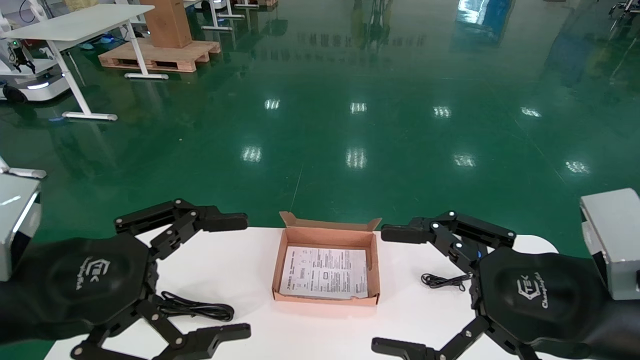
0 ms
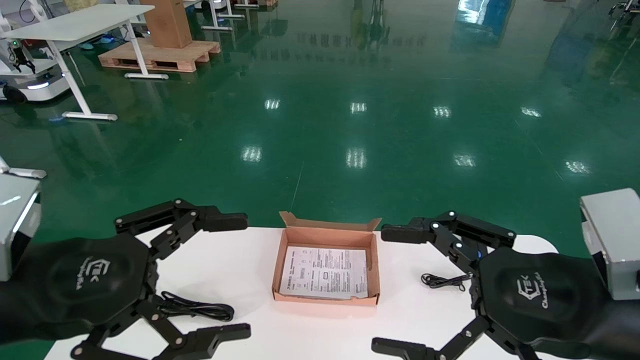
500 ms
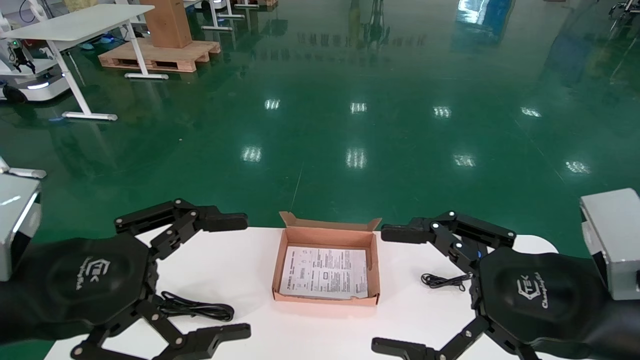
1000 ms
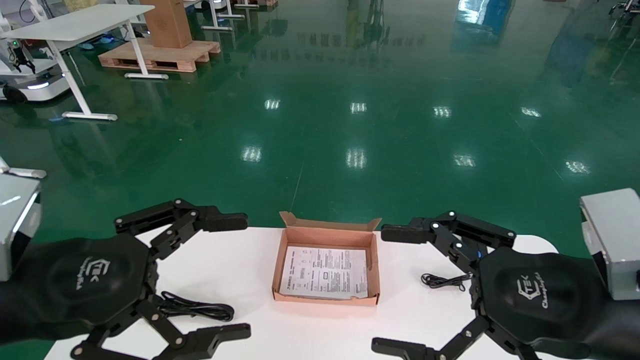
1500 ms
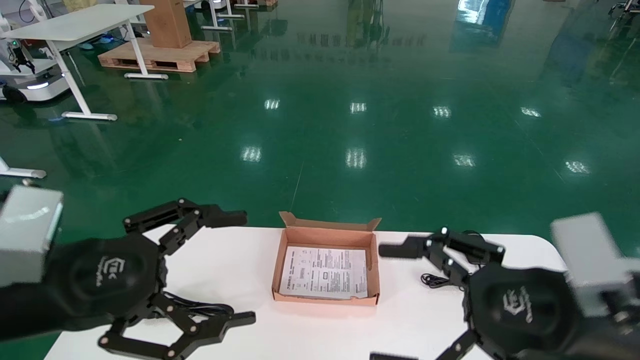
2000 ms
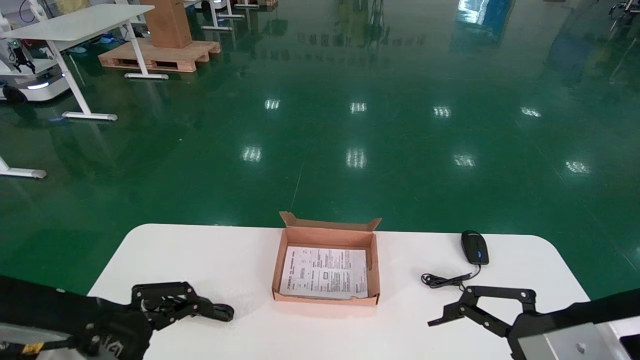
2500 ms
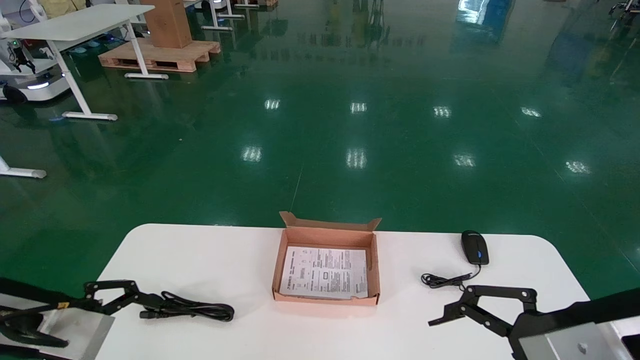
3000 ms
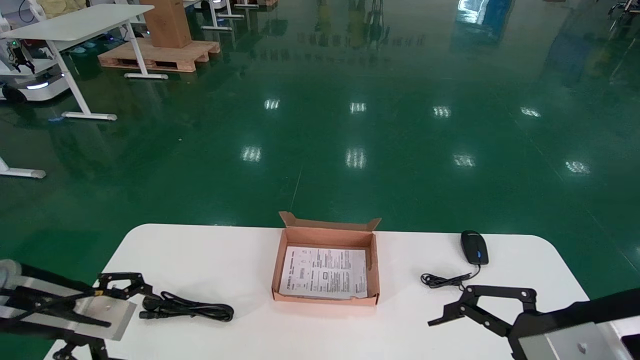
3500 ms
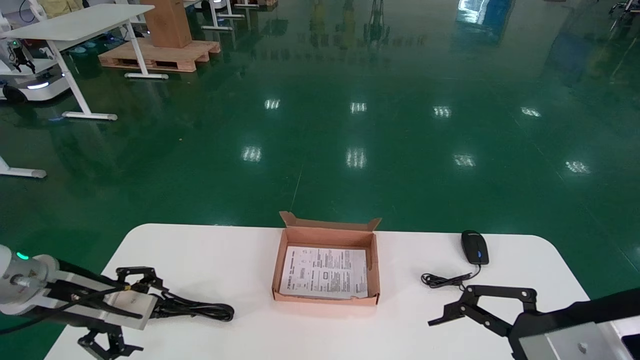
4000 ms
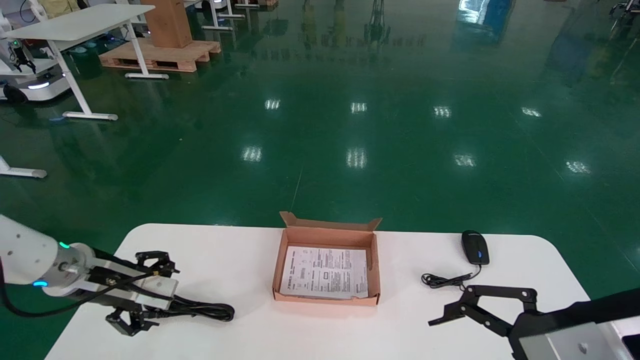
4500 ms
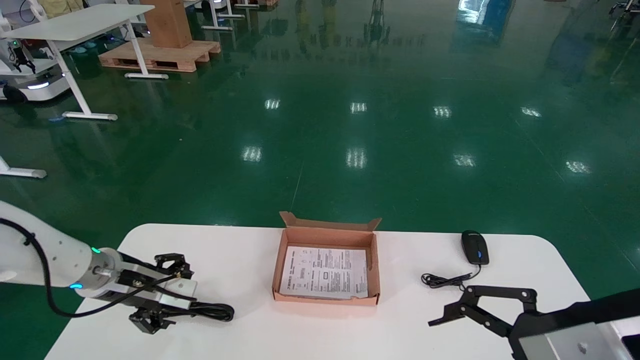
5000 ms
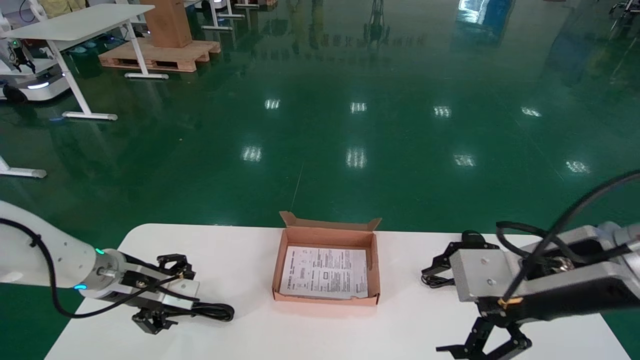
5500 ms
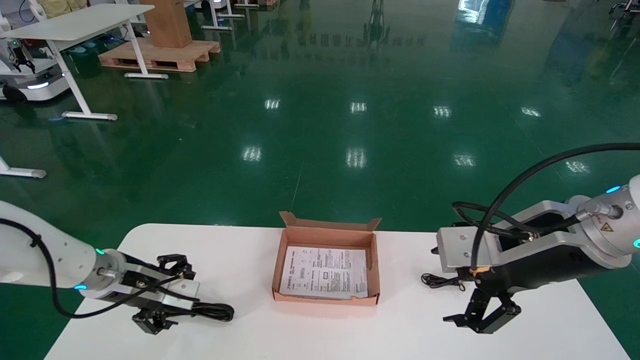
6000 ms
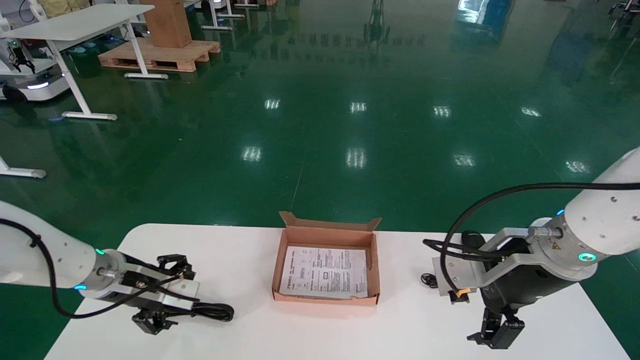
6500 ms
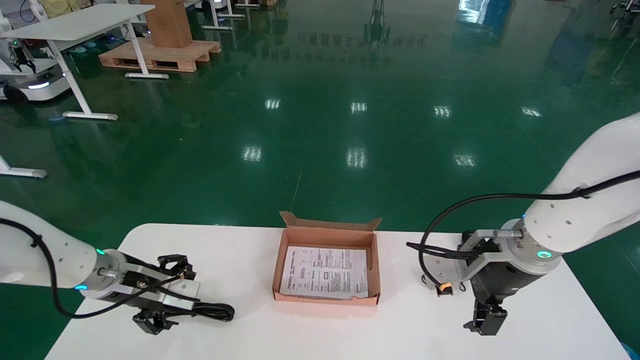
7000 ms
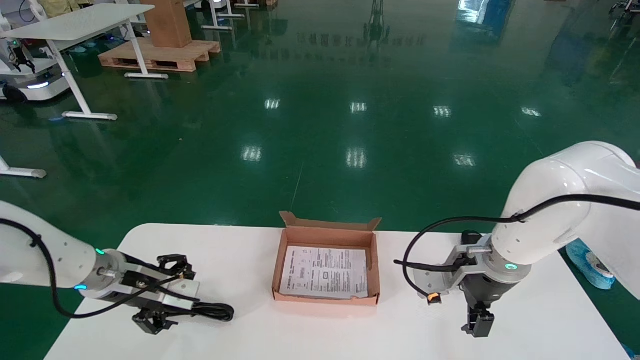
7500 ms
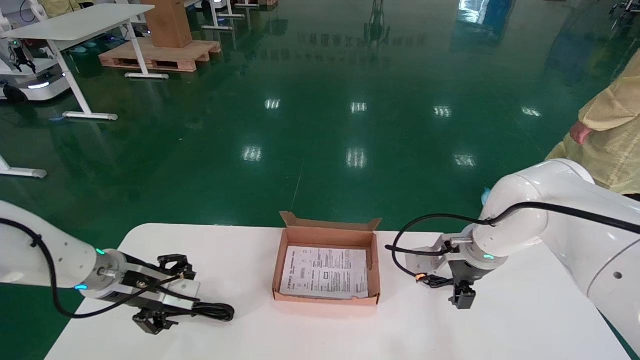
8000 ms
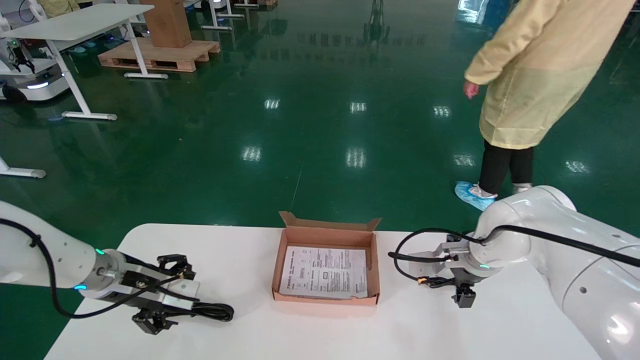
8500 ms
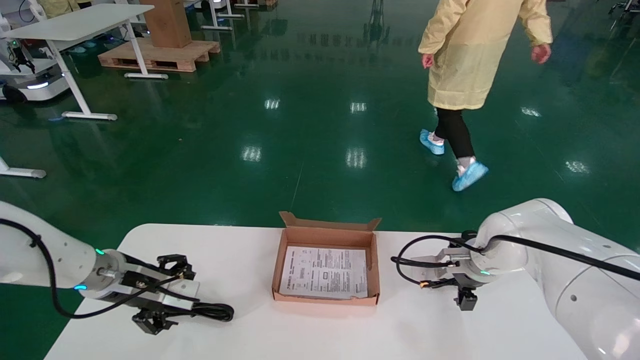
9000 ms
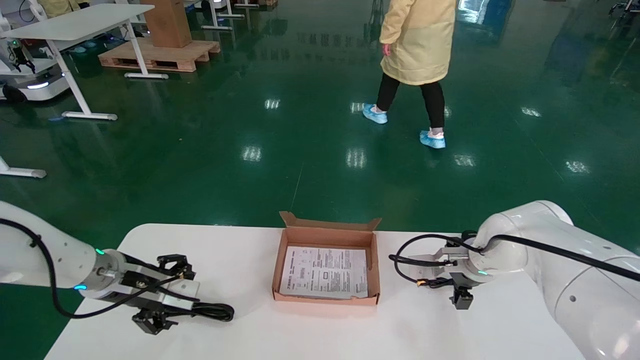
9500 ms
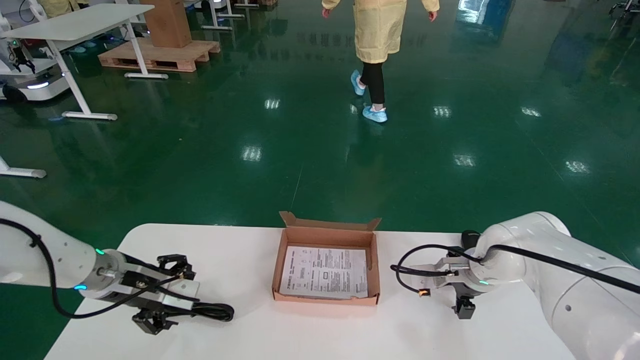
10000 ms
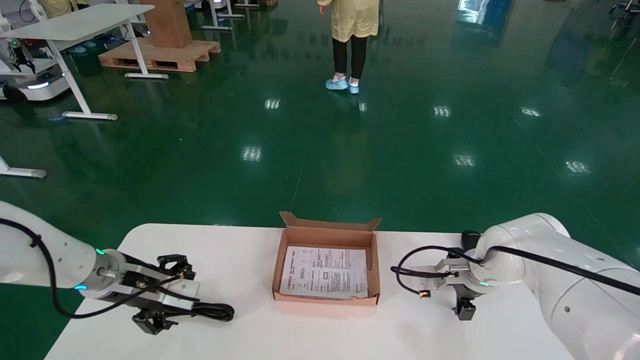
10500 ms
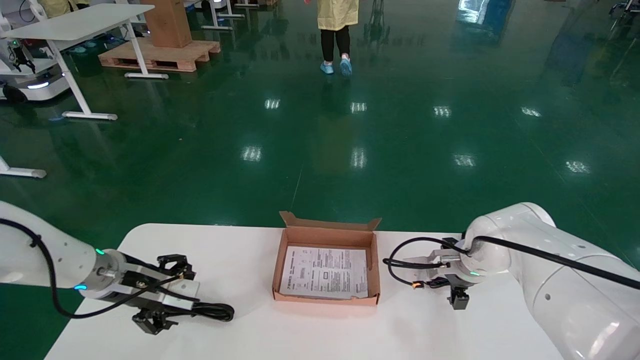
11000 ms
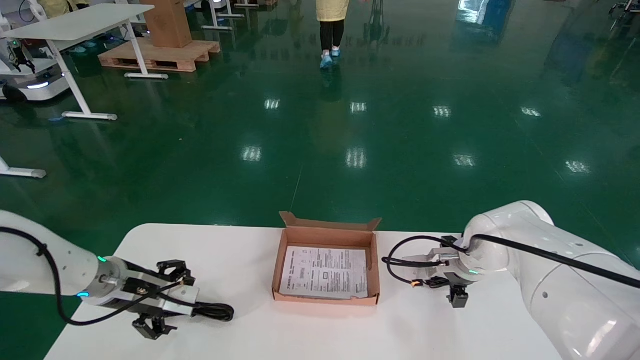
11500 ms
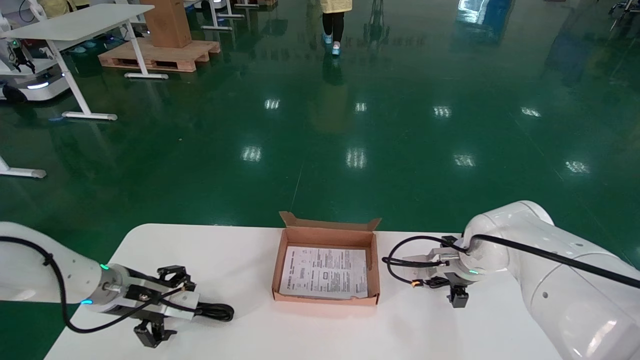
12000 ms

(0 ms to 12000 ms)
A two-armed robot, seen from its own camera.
0 ms - 2000 ms: The grippers move only a little.
2000 ms - 4000 ms: The left gripper travels to the left and forward by some 10 cm.
4000 ms - 6000 ms: The left gripper goes about 15 cm forward and downward.
6000 ms - 8000 ms: The right gripper goes approximately 20 cm forward.
8000 ms - 10000 ms: The right gripper travels forward and downward by roughly 10 cm.
10000 ms - 12000 ms: The grippers stay close to where they were, moving slightly.

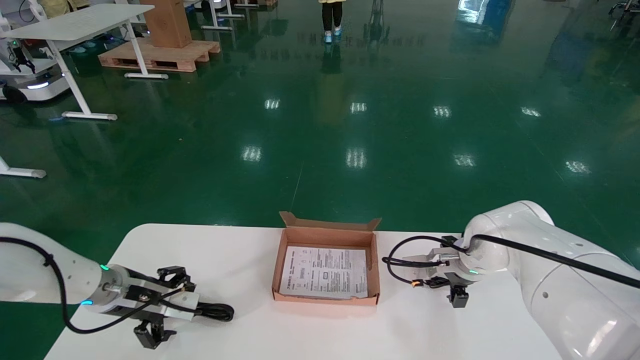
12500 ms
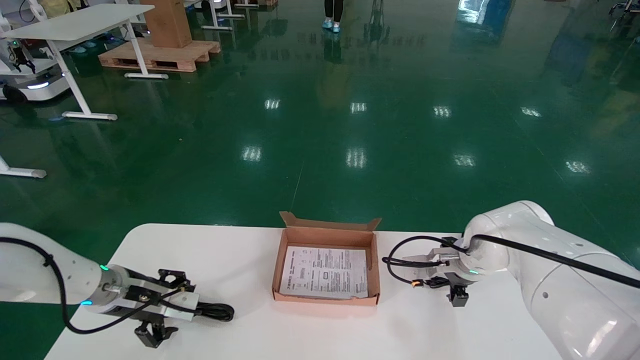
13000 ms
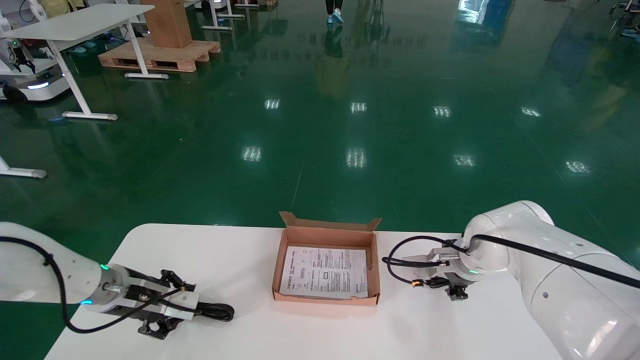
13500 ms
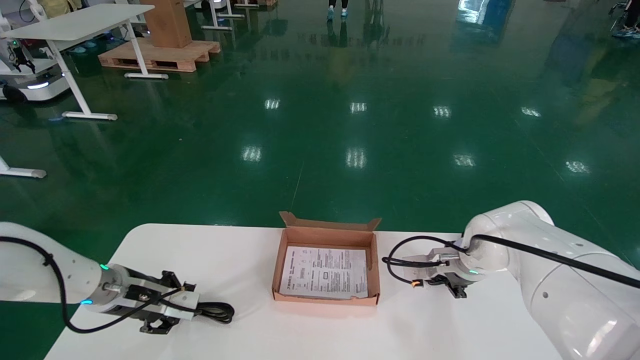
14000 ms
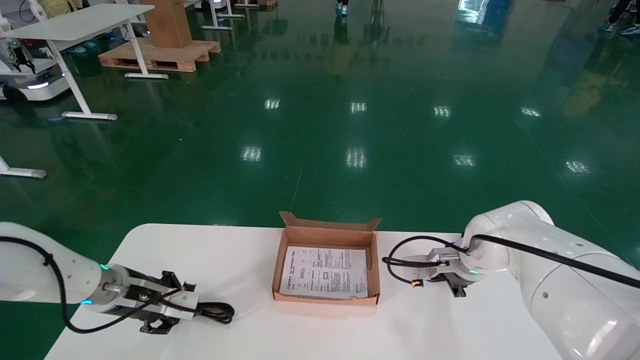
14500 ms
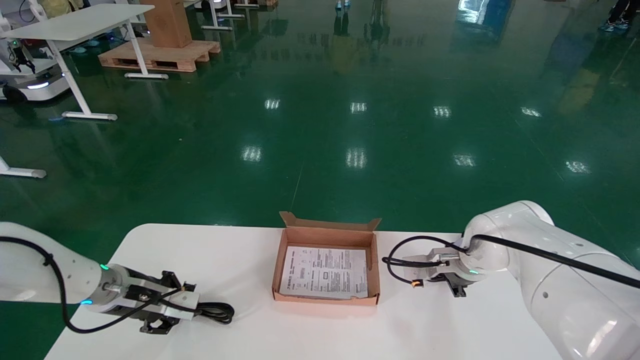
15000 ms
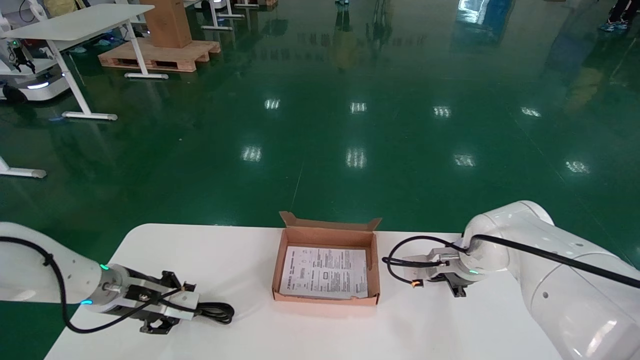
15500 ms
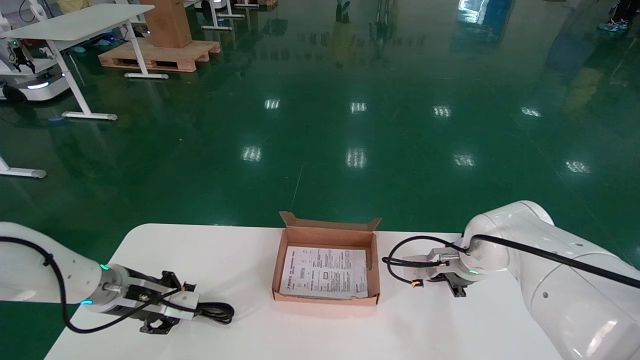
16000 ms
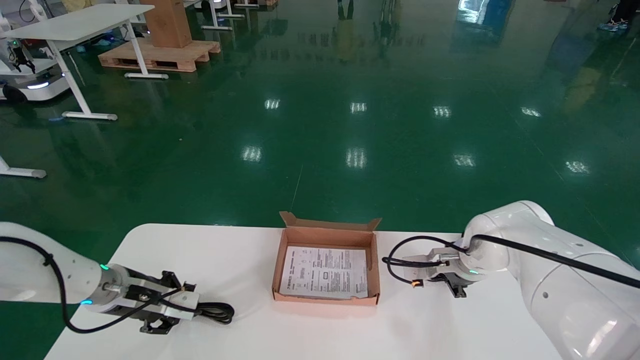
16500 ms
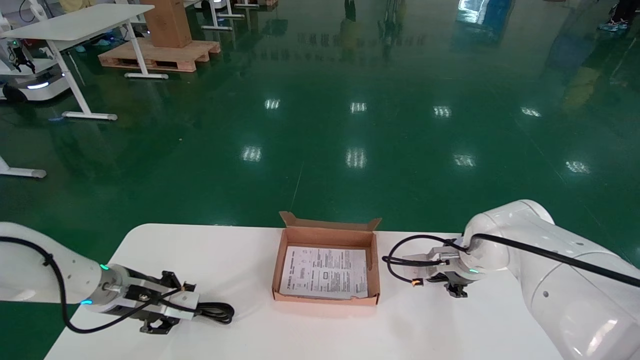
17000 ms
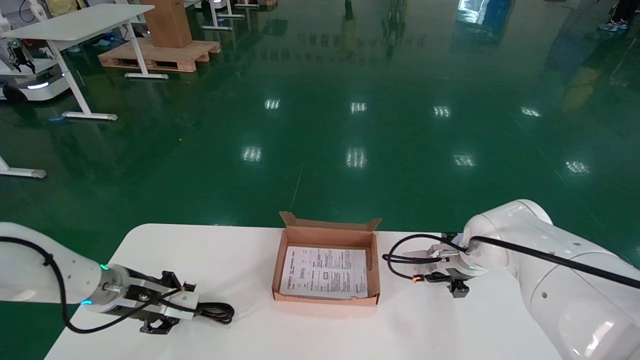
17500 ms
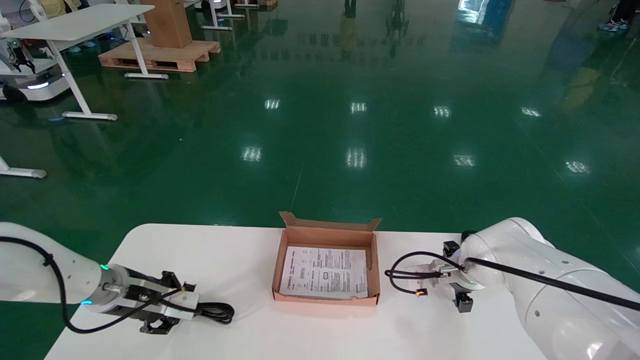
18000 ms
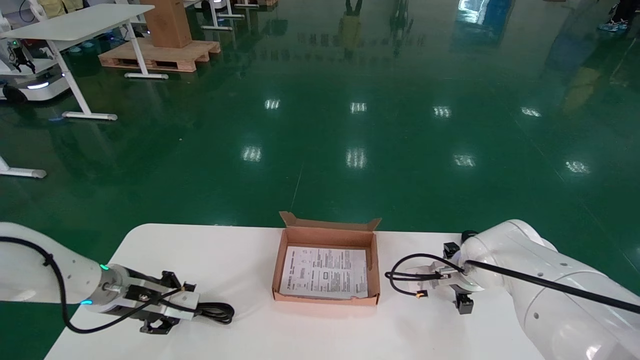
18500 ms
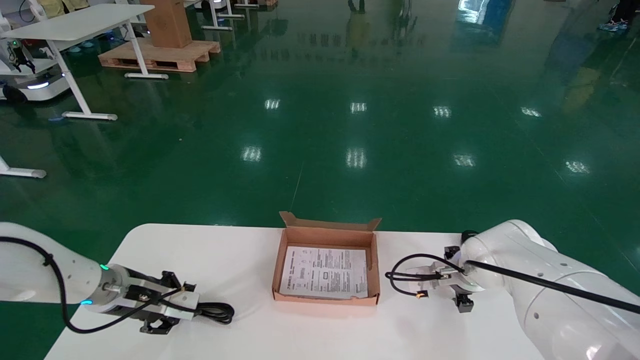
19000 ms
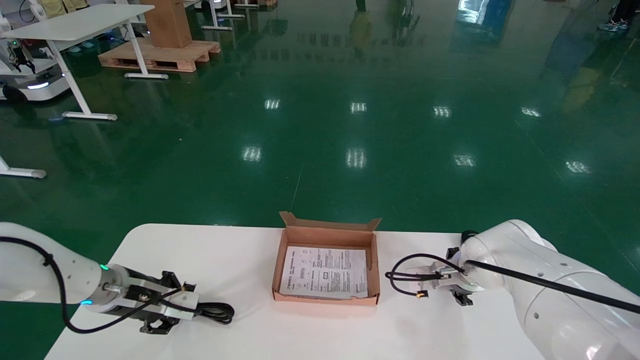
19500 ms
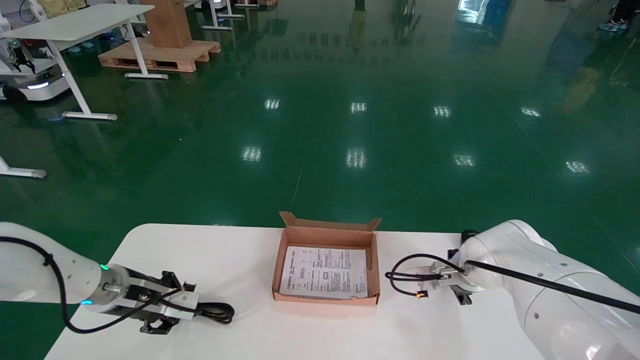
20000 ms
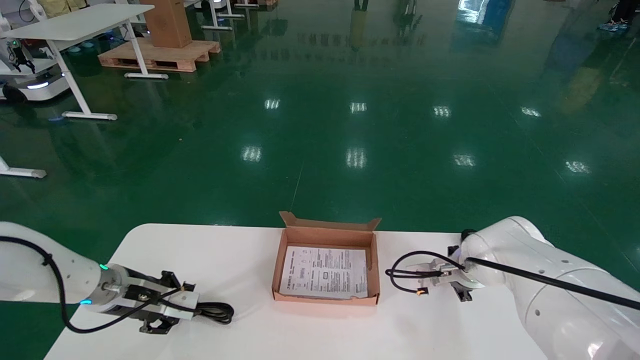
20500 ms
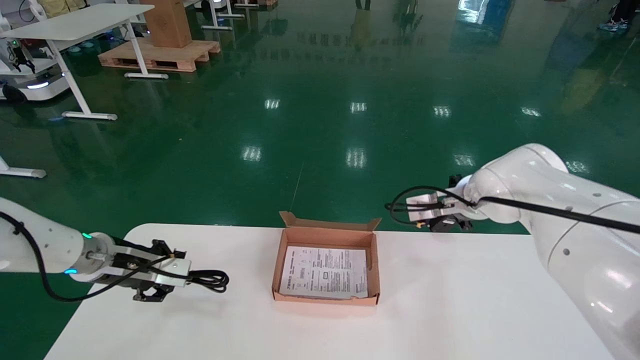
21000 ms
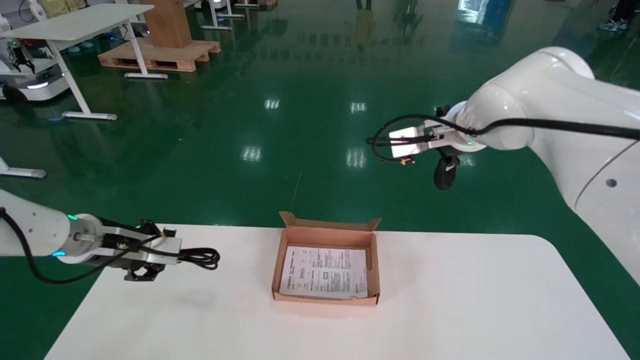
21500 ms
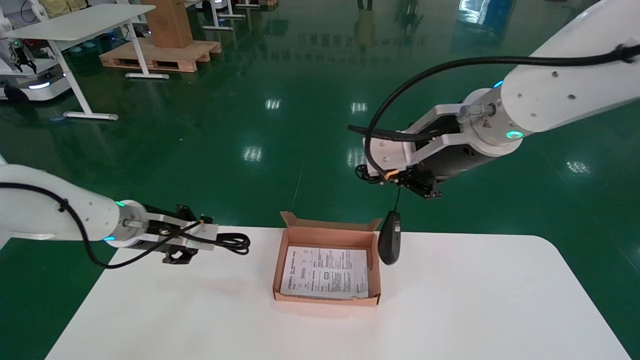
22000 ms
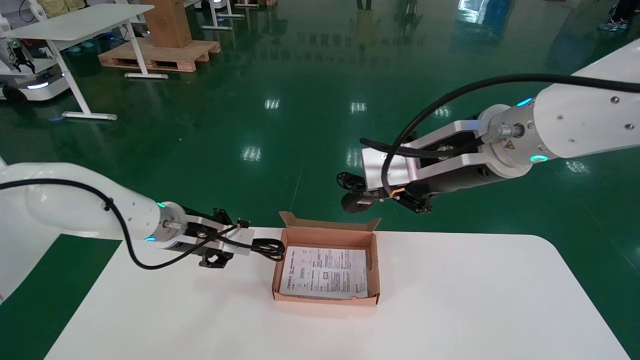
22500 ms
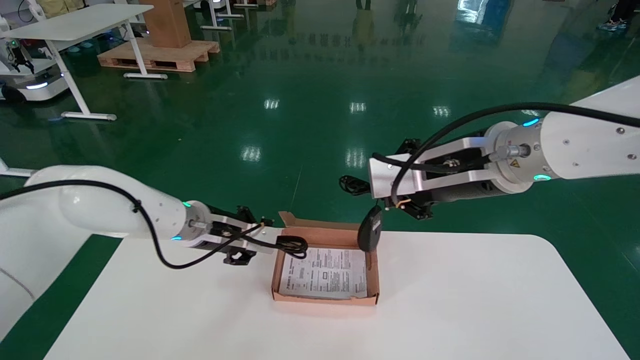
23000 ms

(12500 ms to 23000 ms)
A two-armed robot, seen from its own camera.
Step, 12500 ms - 21000 ms: Grab and pick up the mouse and power cord from the accessory packaging area.
12500 ms - 14500 ms: The left gripper closes its fingers. The right gripper closes its fingers.
16500 ms - 19000 ms: The right gripper opens.
19000 ms - 21000 ms: The right gripper closes up.
21000 ms - 23000 ms: The right gripper is displaced upward and backward by approximately 30 cm. Meanwhile the left gripper moves upward and to the right, about 10 cm.
